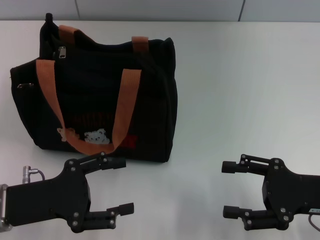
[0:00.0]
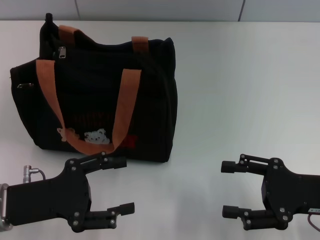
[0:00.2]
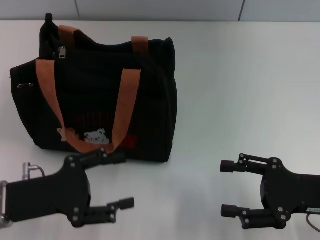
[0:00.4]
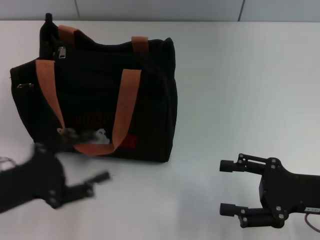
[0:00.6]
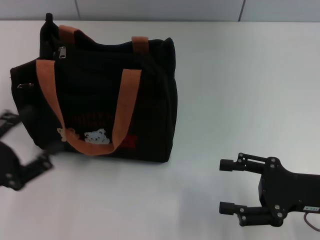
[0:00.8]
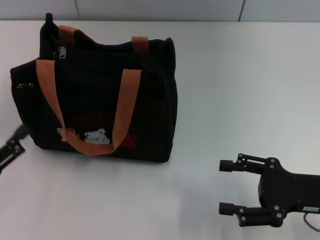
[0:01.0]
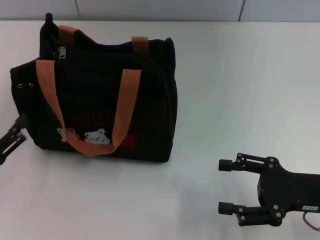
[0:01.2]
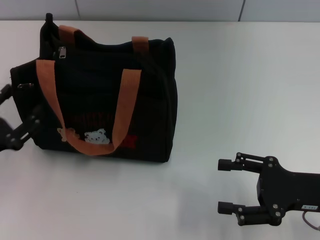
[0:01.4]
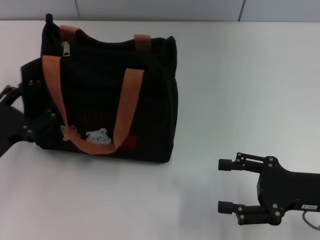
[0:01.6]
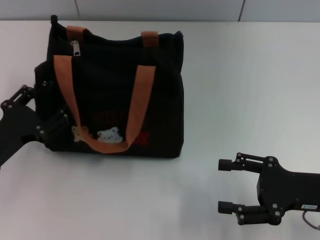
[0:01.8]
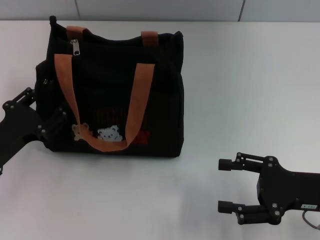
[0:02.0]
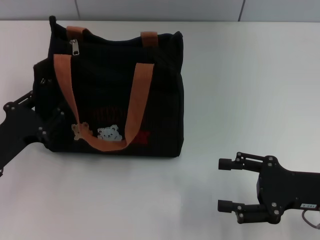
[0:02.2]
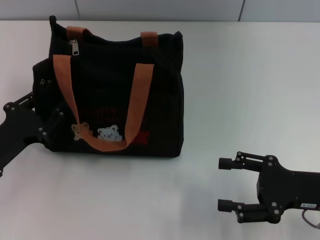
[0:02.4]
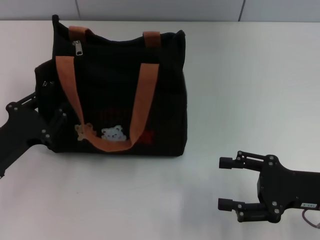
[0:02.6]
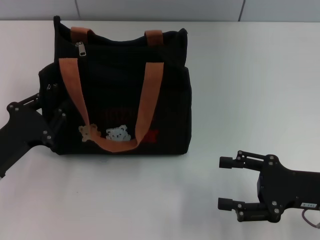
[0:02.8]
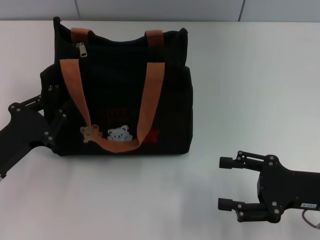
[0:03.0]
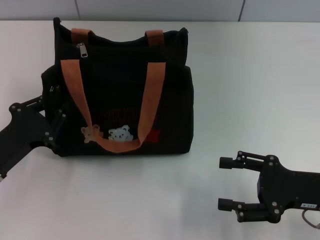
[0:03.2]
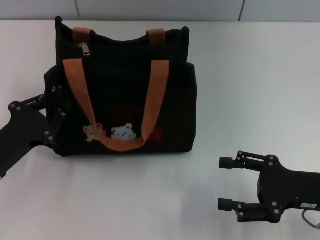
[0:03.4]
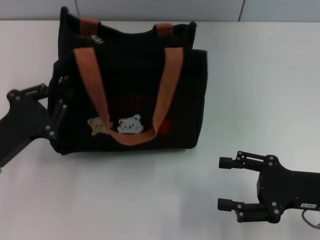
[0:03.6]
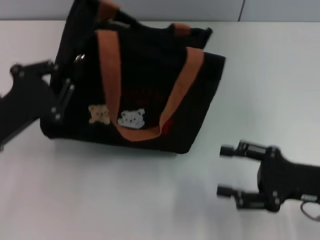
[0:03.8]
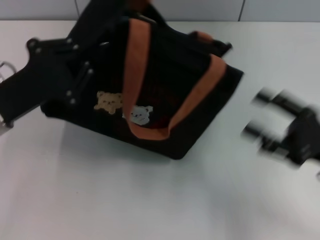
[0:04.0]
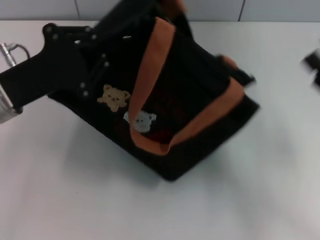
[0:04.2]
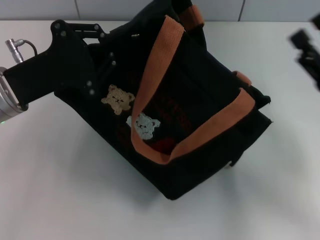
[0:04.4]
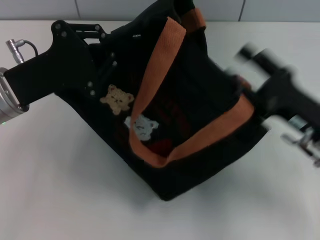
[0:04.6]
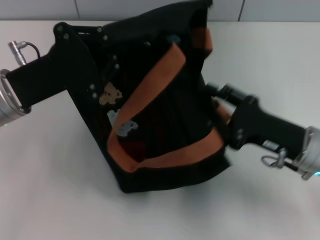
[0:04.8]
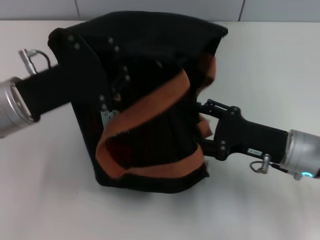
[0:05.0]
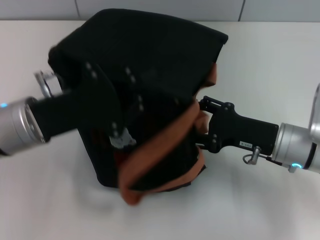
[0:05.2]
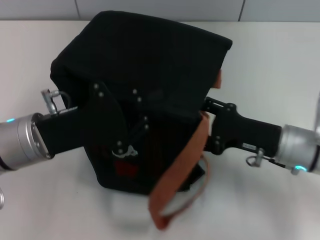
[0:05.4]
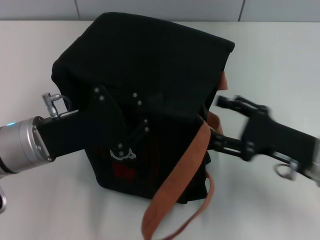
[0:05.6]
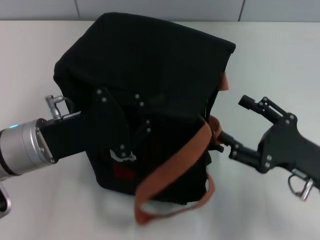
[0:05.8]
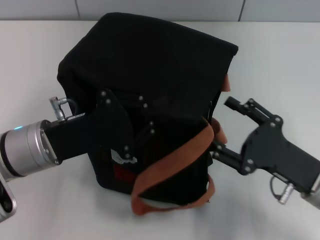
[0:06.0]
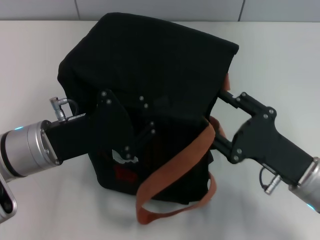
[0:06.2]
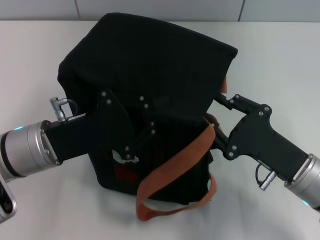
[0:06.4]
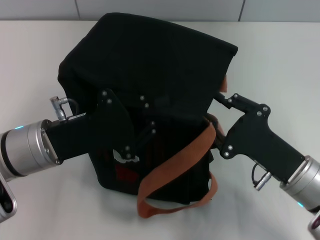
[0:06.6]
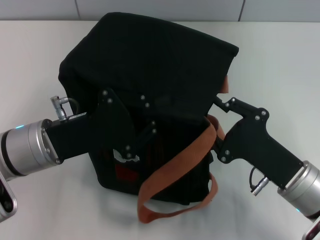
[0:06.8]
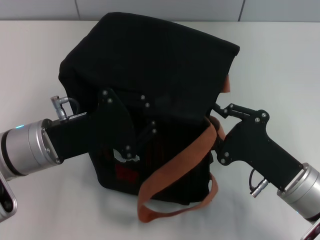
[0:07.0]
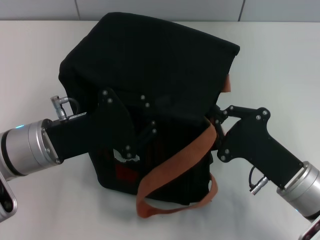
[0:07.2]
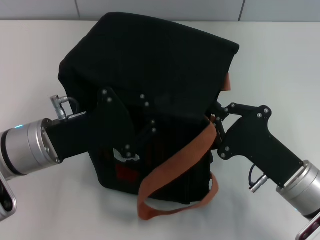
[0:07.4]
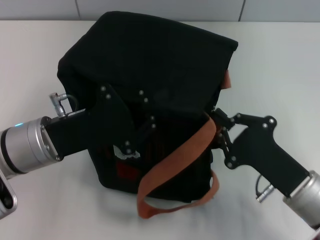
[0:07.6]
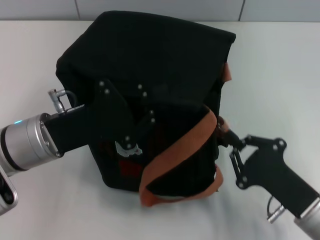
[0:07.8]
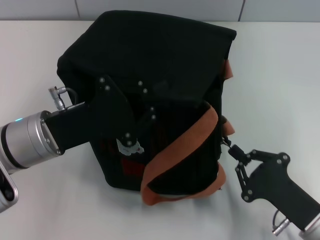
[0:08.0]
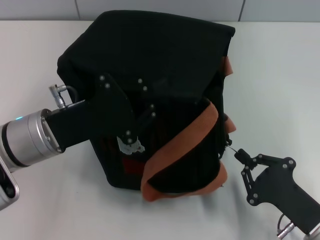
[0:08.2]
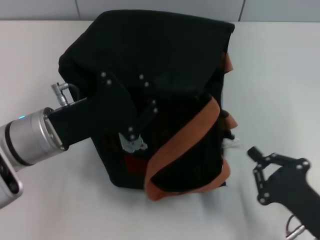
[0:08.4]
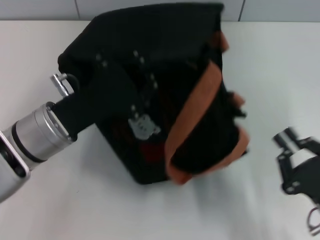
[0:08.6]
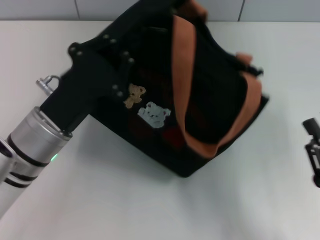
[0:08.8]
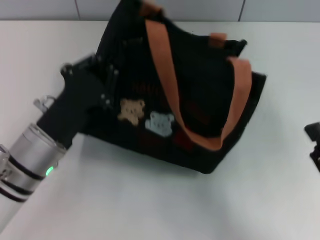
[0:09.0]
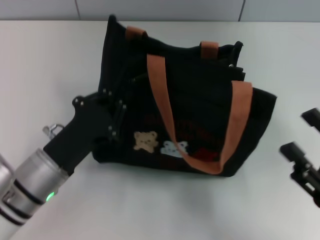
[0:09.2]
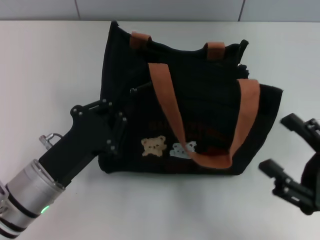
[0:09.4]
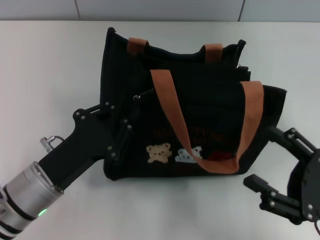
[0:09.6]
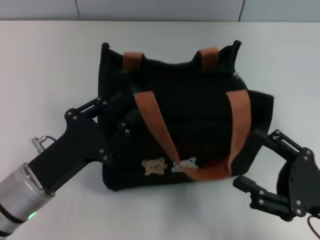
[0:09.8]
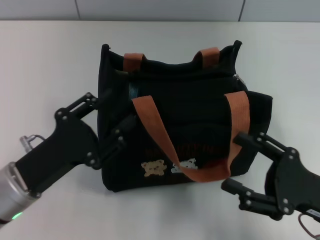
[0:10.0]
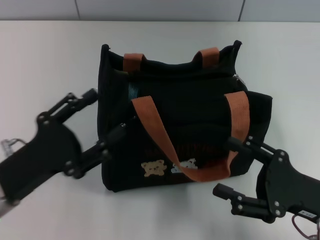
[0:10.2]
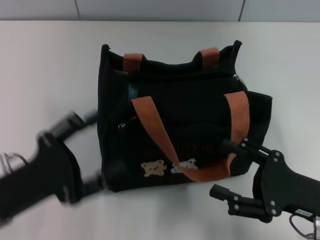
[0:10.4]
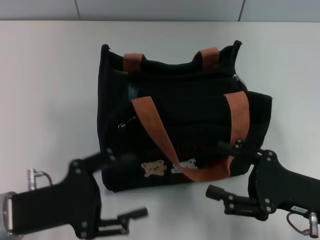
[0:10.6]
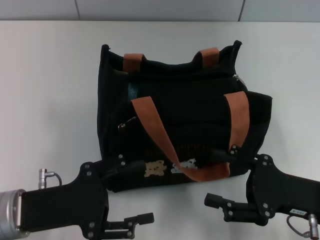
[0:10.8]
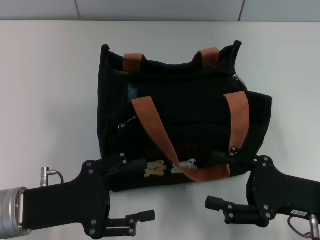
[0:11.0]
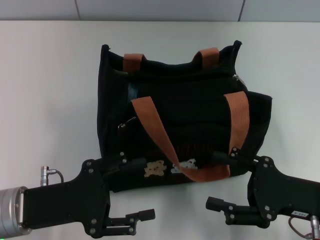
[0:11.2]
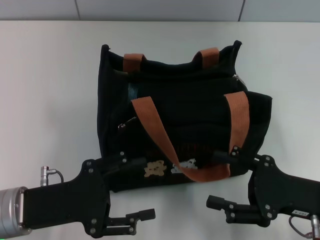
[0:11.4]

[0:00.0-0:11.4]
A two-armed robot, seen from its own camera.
Step, 0.0 to 8.4 s: Pull open the zipper with your right hand.
Step, 8.6 to 9.8 s: Grab the bag with your left hand.
0.0 to 1.4 s: The left gripper moves to the left, about 5 cm.
1.4 to 2.8 s: The left gripper closes.
2.8 to 4.2 s: The left gripper moves upward and forward, roughly 10 cm, and closes its fingers.
4.2 to 5.6 s: The left gripper changes place by roughly 5 cm.
5.6 to 7.2 s: The right gripper moves to the left, approximately 5 cm, and closes its fingers.
7.2 to 8.6 s: The right gripper goes about 10 cm backward and to the right.
8.6 to 10.0 s: The right gripper is displaced forward by approximately 5 cm, and opens. Meanwhile the left gripper is displaced backward by roughly 5 cm, and opens up.
10.0 to 11.4 s: The left gripper opens.

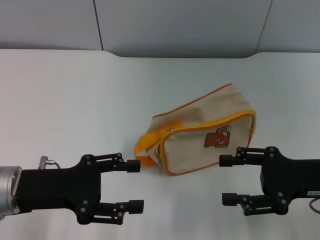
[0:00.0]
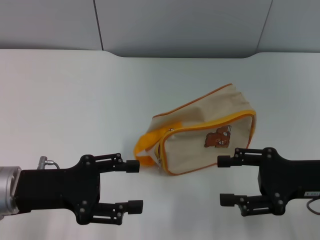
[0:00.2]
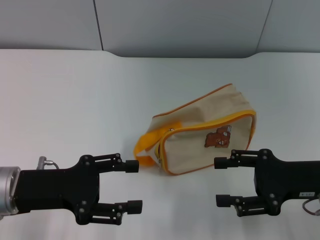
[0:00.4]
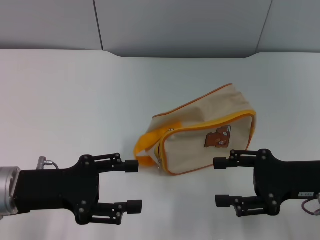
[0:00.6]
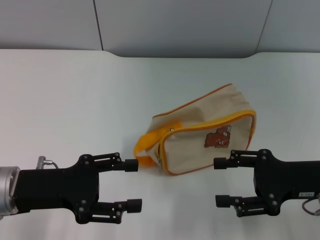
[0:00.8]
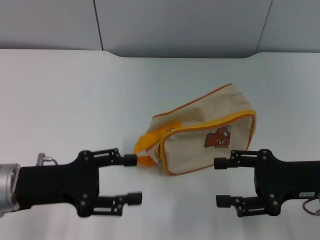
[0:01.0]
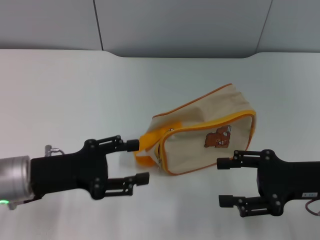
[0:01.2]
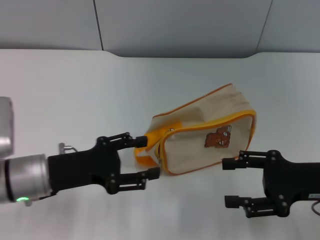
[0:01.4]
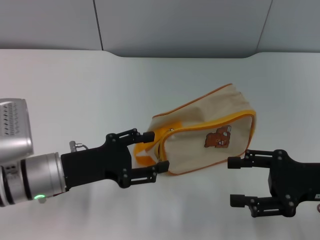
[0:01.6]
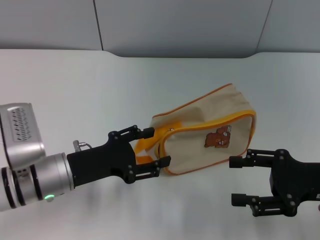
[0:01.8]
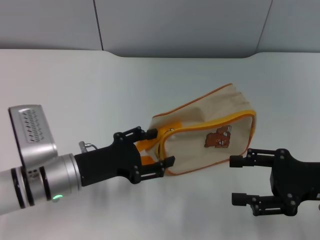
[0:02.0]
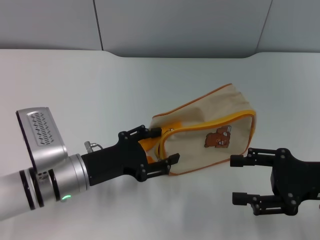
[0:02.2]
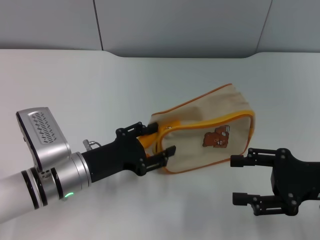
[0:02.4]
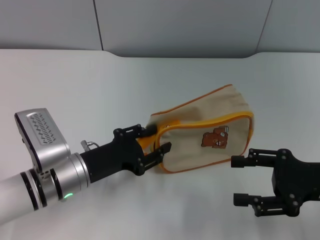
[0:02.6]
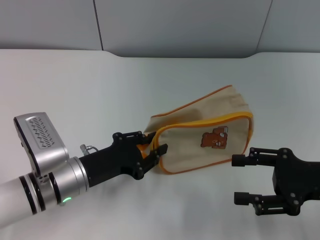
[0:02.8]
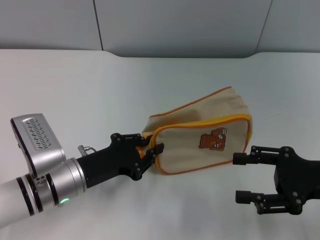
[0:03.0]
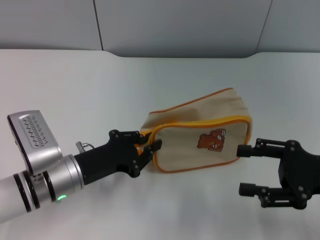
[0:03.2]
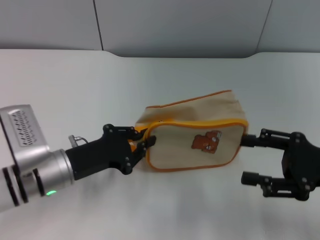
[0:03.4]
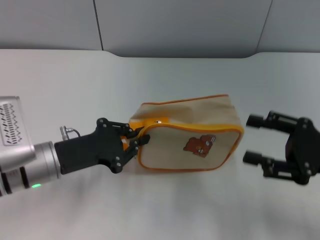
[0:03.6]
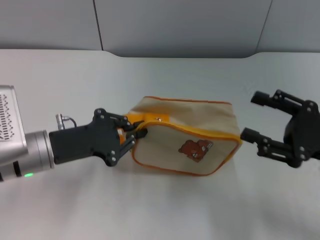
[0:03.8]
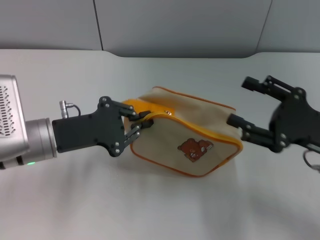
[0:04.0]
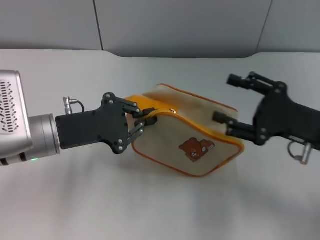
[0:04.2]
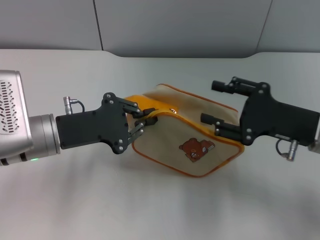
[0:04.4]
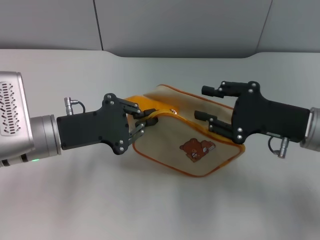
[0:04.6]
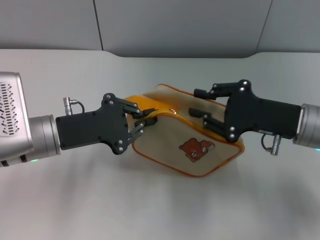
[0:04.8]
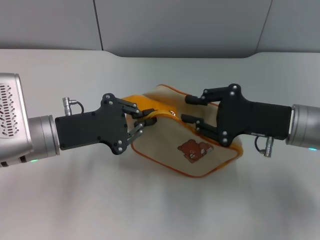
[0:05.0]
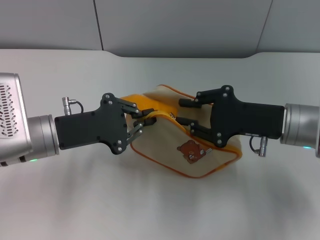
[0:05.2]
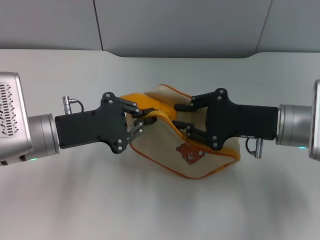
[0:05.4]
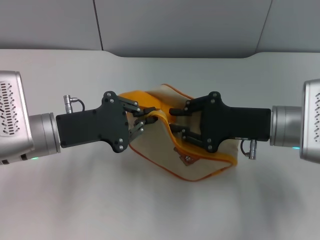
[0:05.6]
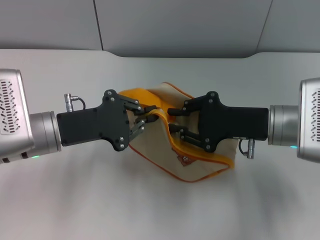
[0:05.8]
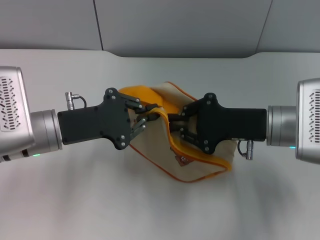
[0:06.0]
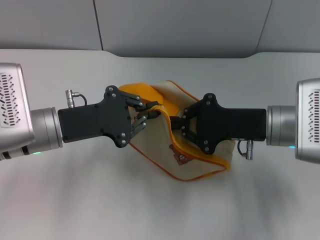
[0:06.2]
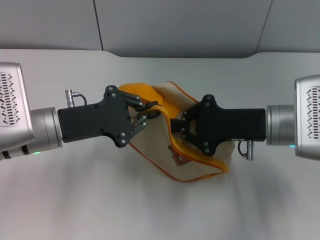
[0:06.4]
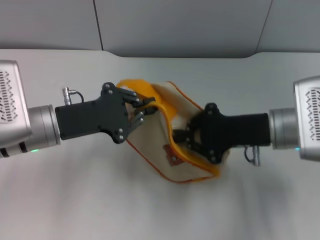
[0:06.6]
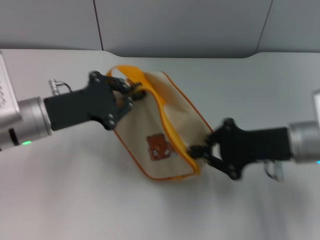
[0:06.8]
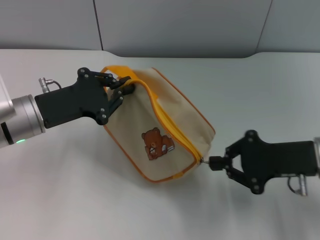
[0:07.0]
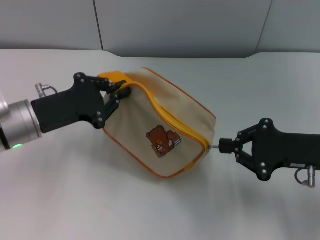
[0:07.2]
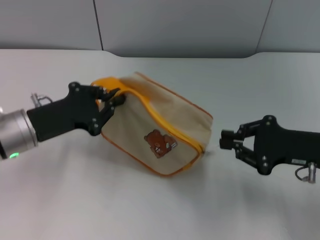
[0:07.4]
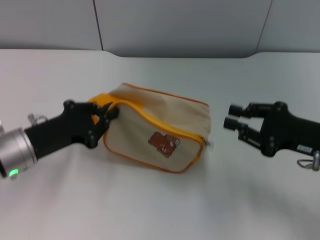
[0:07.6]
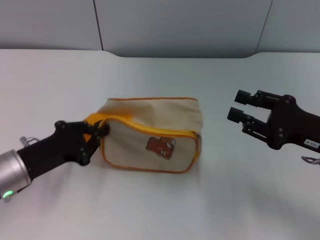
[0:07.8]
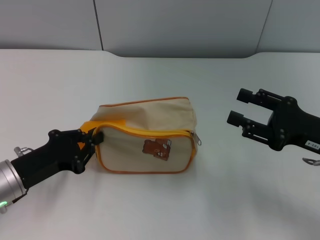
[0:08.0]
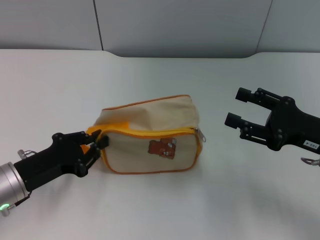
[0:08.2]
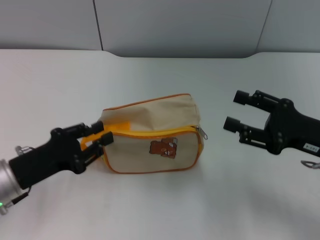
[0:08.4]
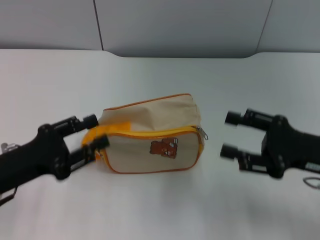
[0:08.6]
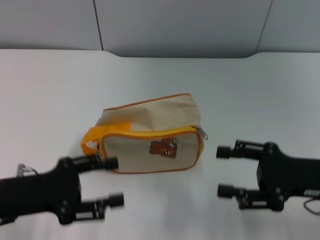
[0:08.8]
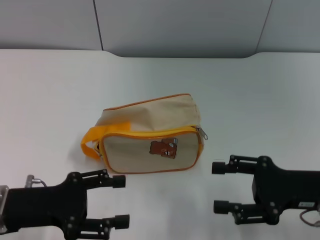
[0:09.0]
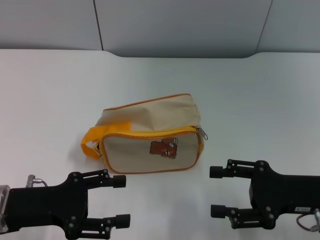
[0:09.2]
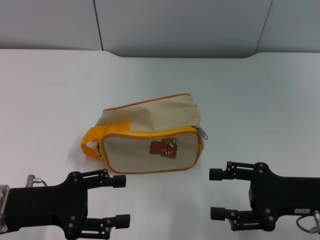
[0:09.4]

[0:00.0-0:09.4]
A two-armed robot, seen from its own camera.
Step, 0.0 to 4.0 s: Pick up the bag with left gripper.
Step, 4.2 to 7.4 s: Unzip the zipper of bag with right gripper.
Step, 7.6 to 8.4 s: Place the bag on the table with left gripper.
0.0 to 1.6 s: The left gripper shifts by about 5 cm.
1.6 to 3.2 s: The left gripper closes its fingers.
3.2 to 4.8 s: The left gripper heads upward, covering about 5 cm. Meanwhile the right gripper goes some 10 cm forward and to the left, and closes its fingers.
6.2 to 7.8 s: The right gripper travels to the right and backward by about 10 cm; the left gripper heads downward, to the left and backward, covering some 10 cm.
7.8 to 9.4 s: The left gripper opens its fingers. Meanwhile the right gripper opens its fingers.

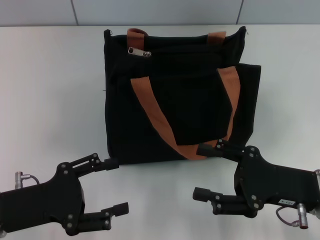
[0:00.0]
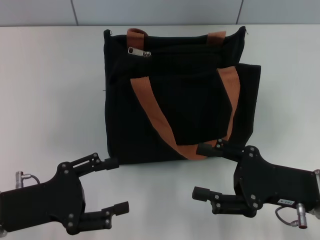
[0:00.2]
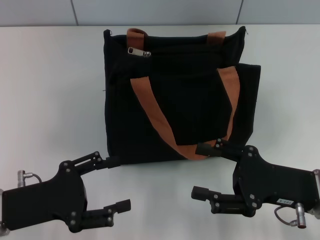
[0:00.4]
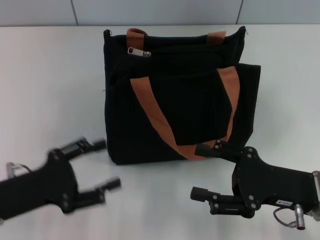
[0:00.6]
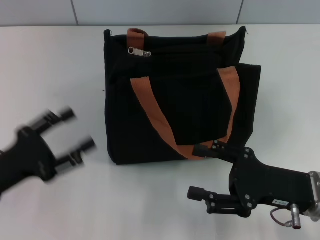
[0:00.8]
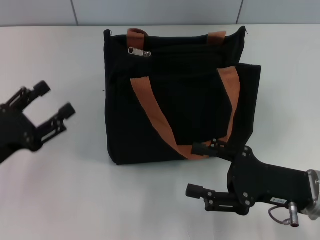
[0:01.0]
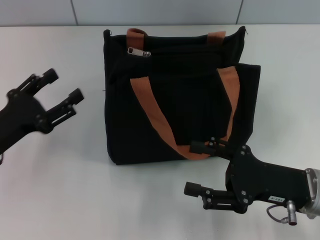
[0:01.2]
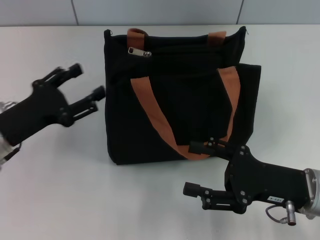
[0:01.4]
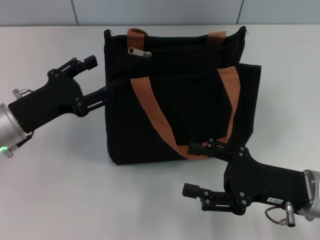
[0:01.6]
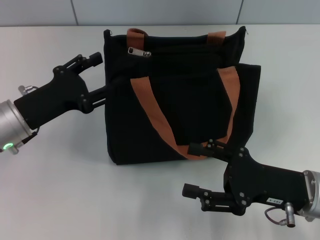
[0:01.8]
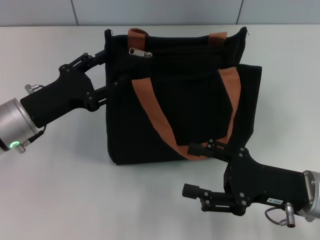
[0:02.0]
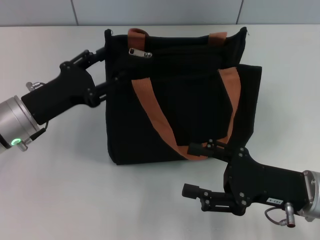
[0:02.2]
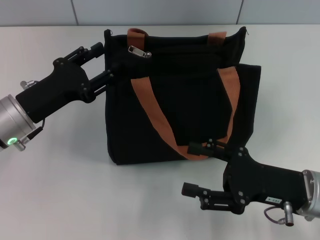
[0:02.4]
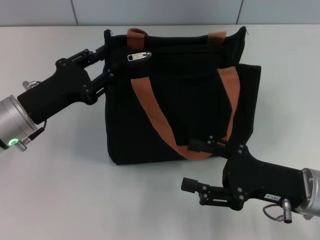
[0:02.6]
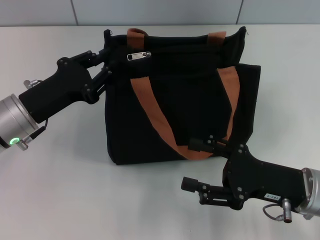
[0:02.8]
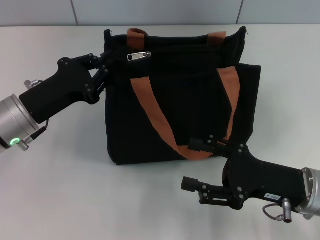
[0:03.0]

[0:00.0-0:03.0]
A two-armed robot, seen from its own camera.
0.0 to 1.6 s: The left gripper shifts about 10 cm forward.
1.6 to 3.0 s: The left gripper closes.
